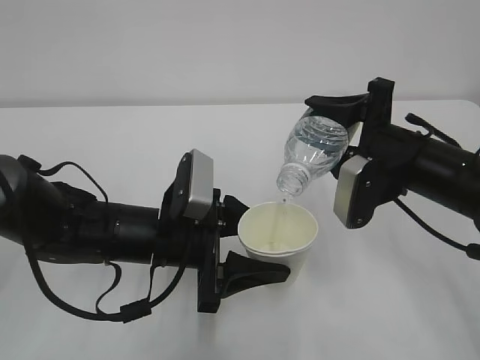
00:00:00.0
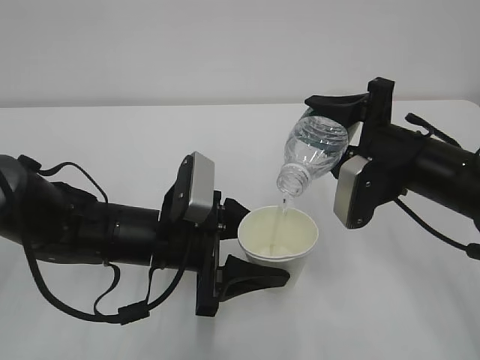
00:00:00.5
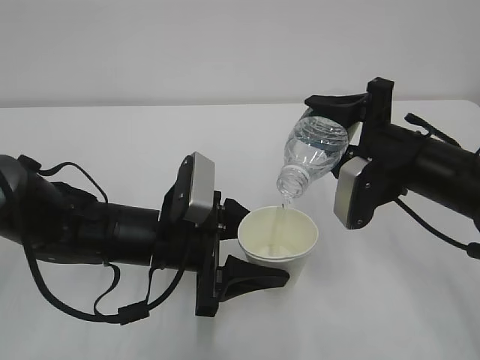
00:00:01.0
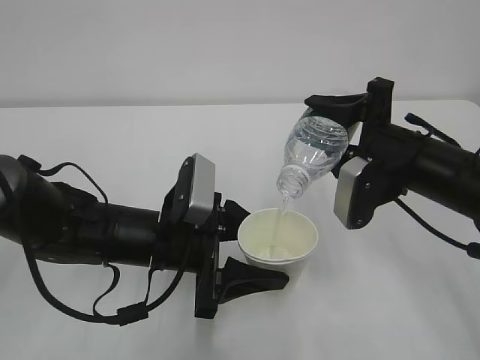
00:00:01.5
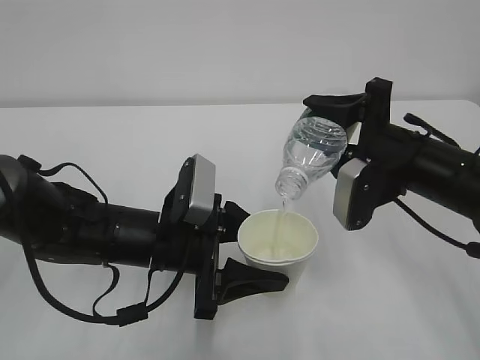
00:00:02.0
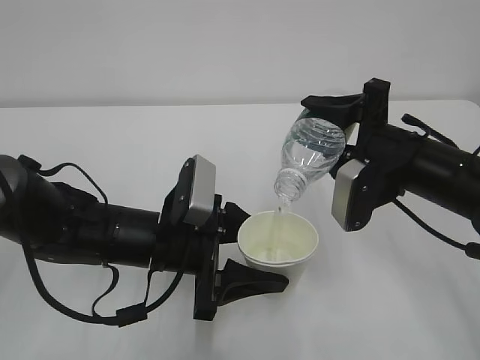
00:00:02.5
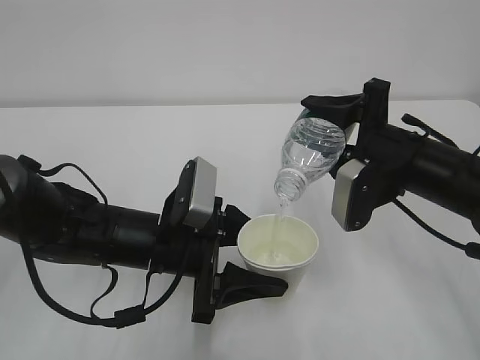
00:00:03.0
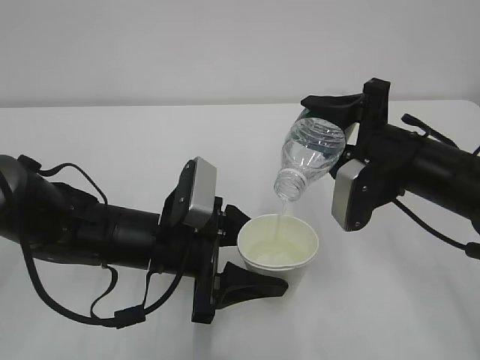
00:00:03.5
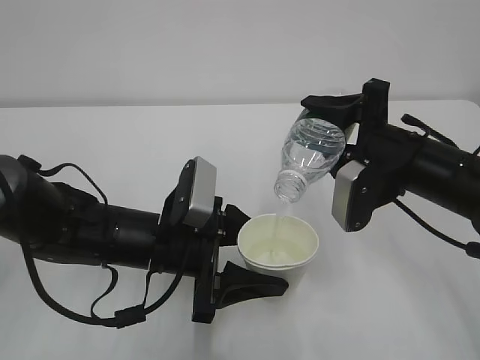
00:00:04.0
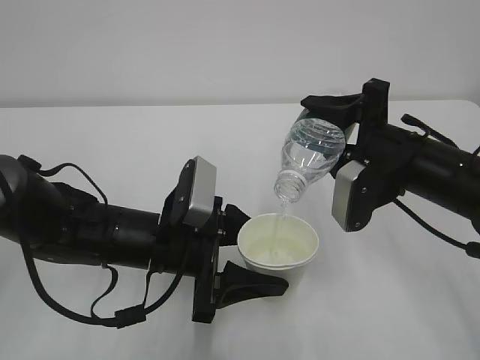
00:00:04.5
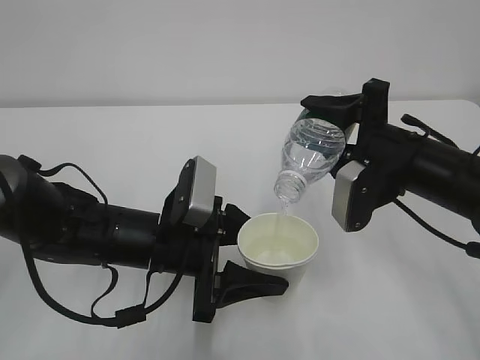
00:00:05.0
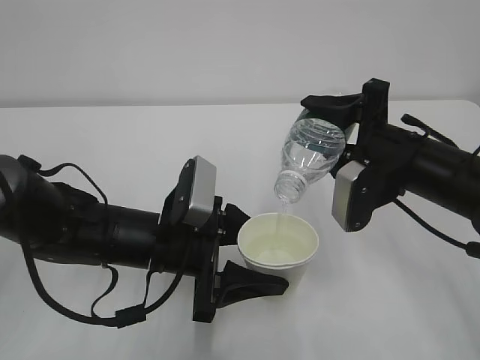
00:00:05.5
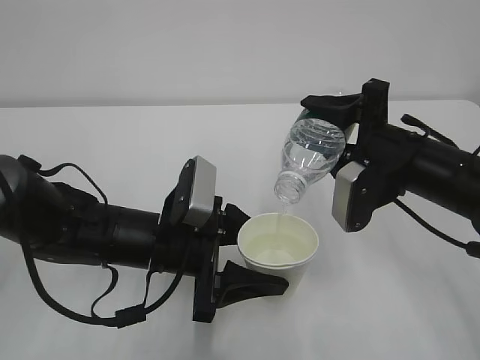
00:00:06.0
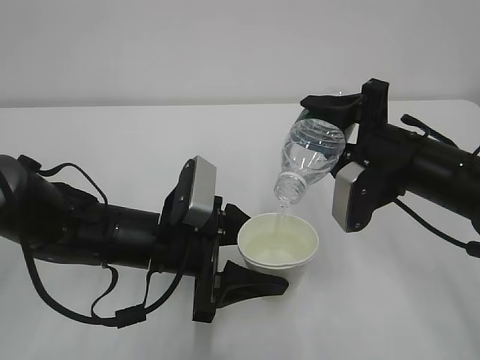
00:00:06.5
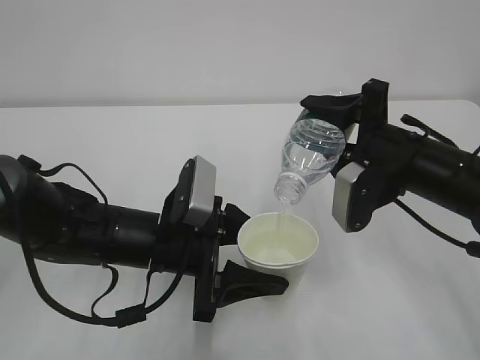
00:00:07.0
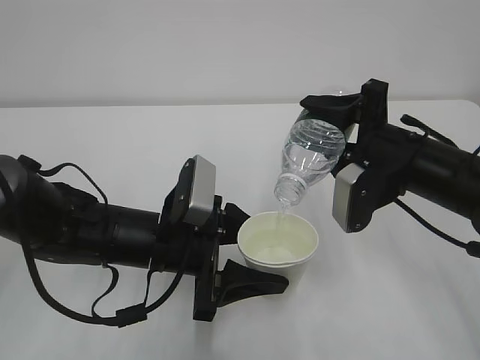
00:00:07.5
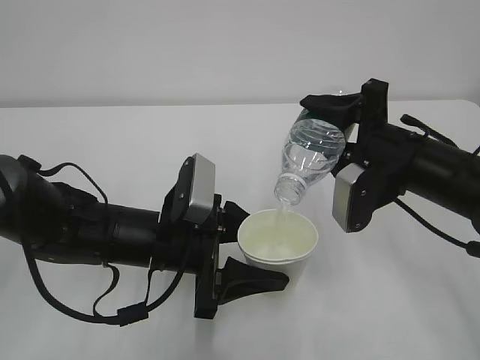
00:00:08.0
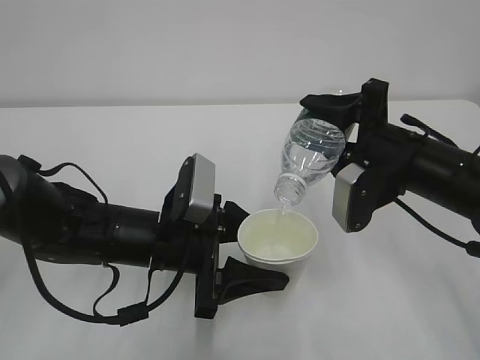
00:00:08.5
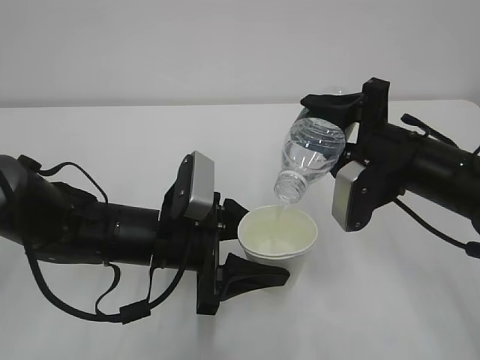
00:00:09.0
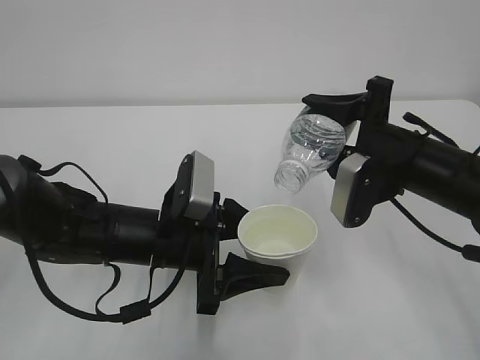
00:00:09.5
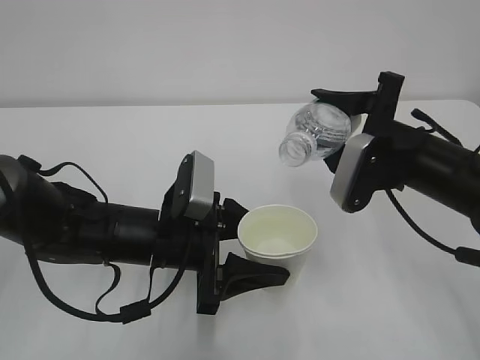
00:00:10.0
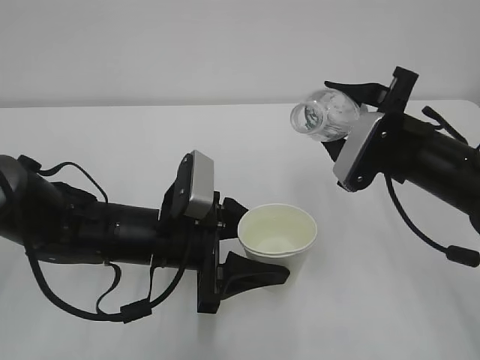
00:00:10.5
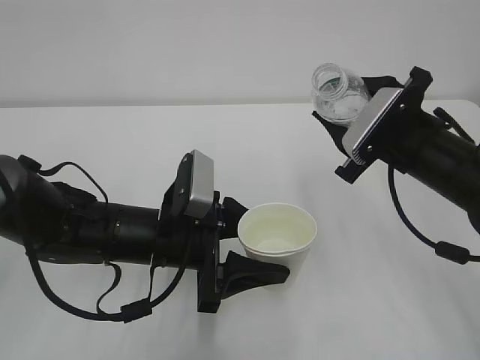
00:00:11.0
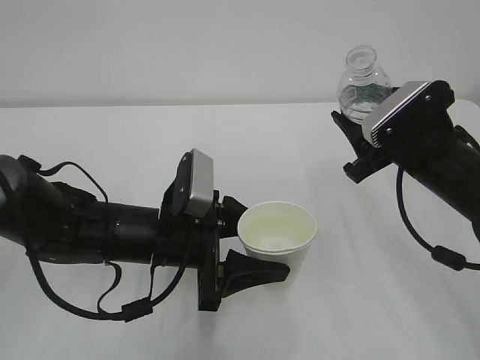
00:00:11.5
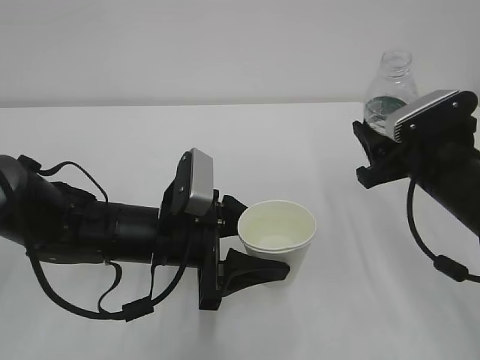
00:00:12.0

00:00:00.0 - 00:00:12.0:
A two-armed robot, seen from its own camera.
00:00:00.0 - 00:00:06.0: Both grippers stay put.
00:00:06.0 - 00:00:08.0: Both grippers stay put.

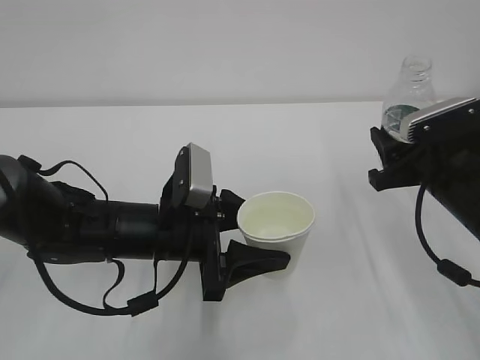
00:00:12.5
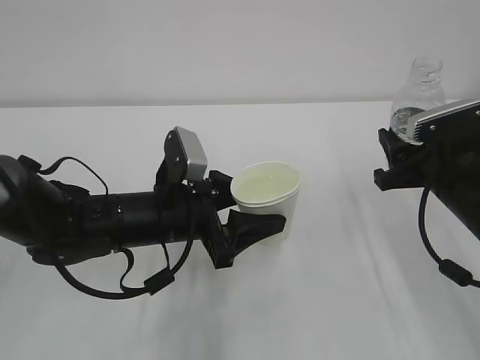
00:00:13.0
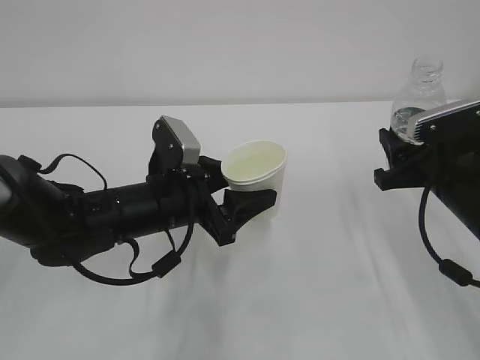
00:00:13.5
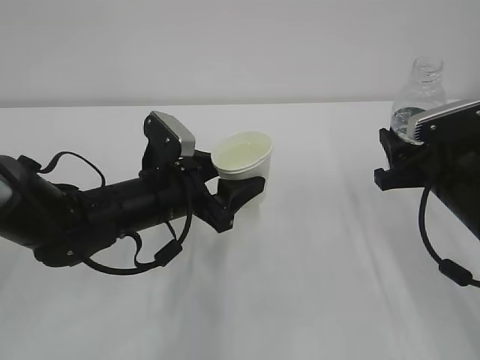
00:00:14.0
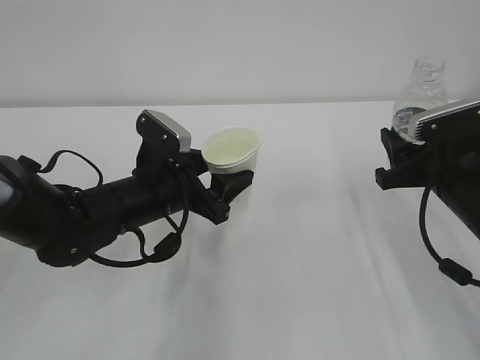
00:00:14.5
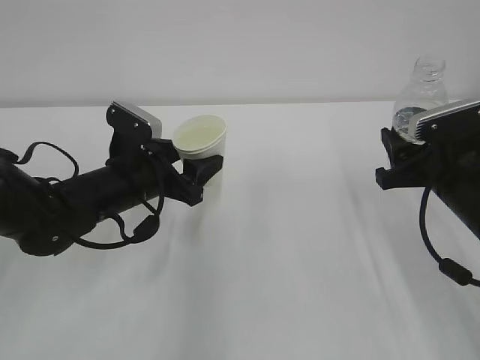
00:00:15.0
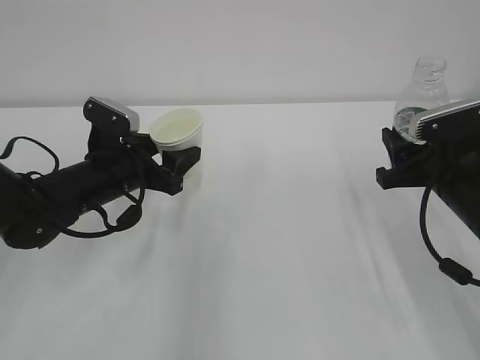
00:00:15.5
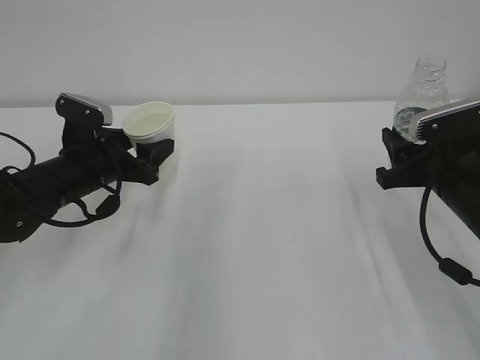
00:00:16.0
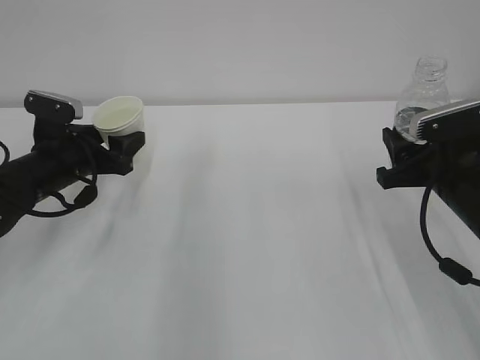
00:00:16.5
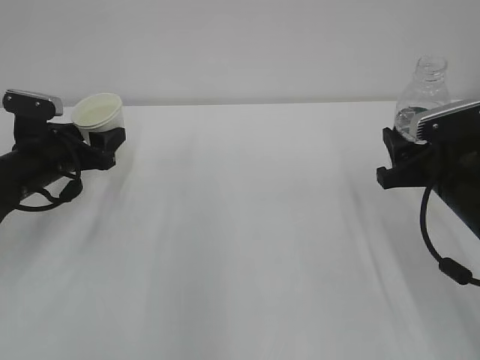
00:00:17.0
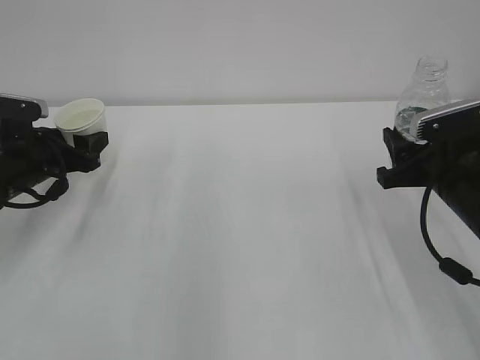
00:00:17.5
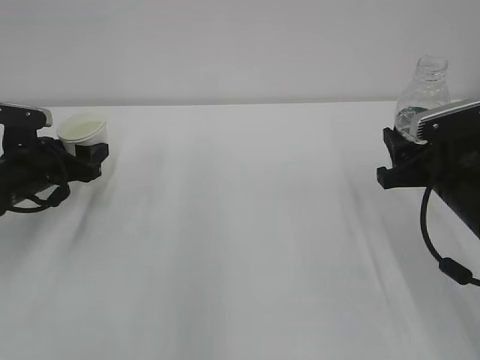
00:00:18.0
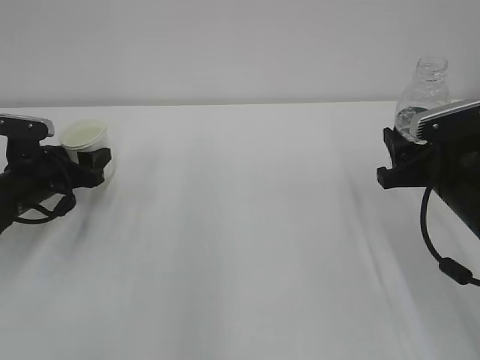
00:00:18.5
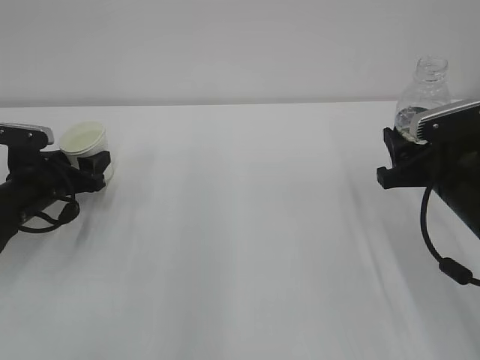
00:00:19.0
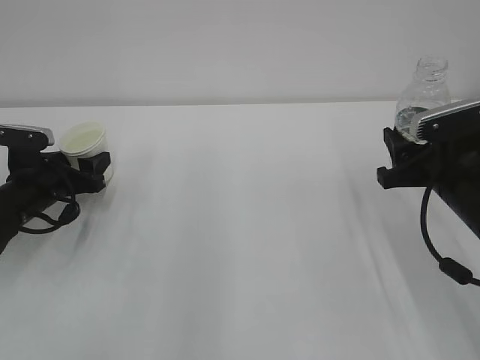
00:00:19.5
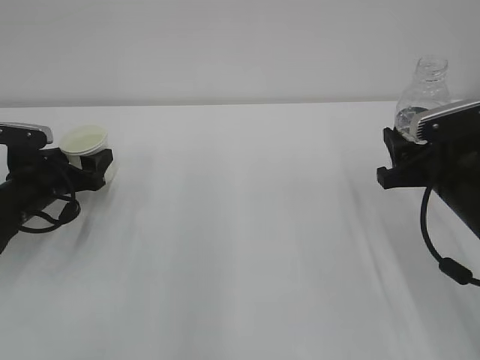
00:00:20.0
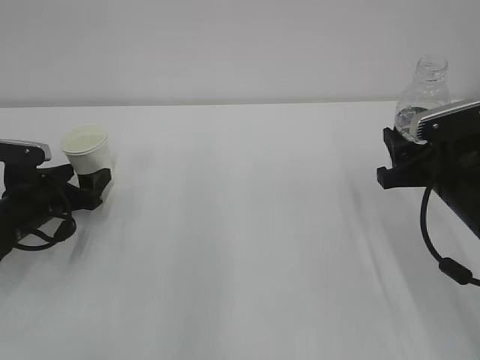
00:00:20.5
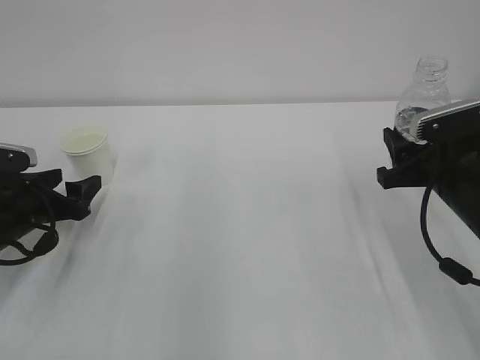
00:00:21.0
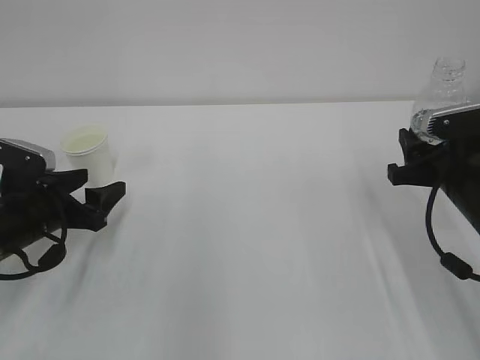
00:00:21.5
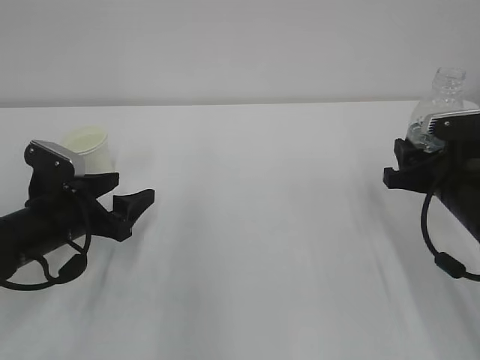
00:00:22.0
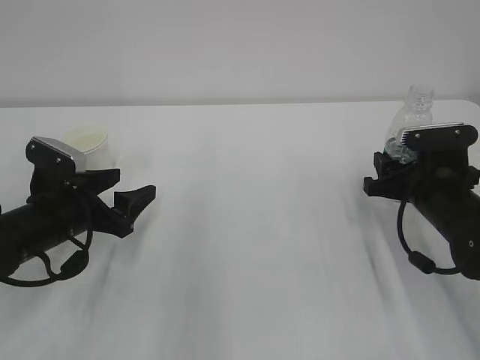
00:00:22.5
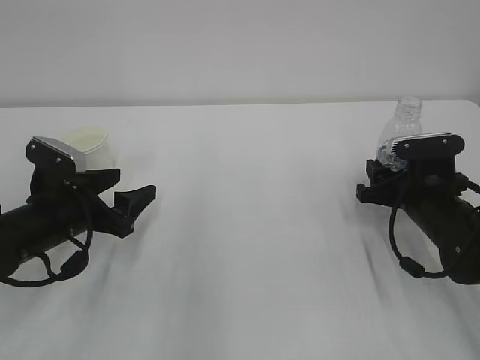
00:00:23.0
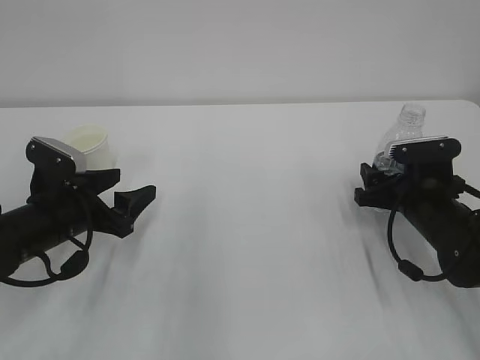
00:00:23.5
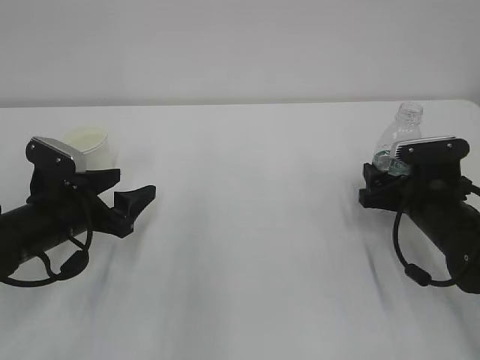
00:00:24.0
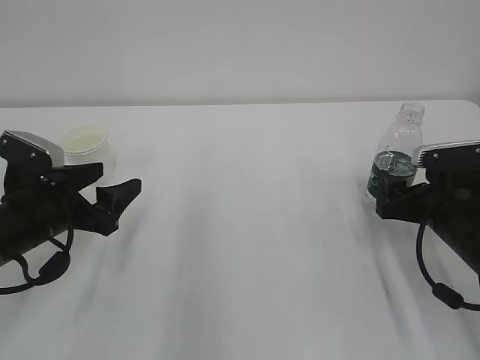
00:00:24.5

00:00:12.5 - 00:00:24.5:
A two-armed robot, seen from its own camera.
00:00:12.5 - 00:00:14.5: The left gripper moves approximately 5 cm.
00:00:14.5 - 00:00:16.5: The left gripper moves to the left and forward, roughly 15 cm.
00:00:16.5 - 00:00:18.5: The left gripper shifts by approximately 5 cm.
00:00:18.5 - 00:00:20.5: The left gripper opens up.
00:00:20.5 - 00:00:22.5: The left gripper shifts roughly 10 cm to the right and backward; the right gripper ends up approximately 5 cm from where it was.
00:00:22.5 - 00:00:24.5: The right gripper opens up.

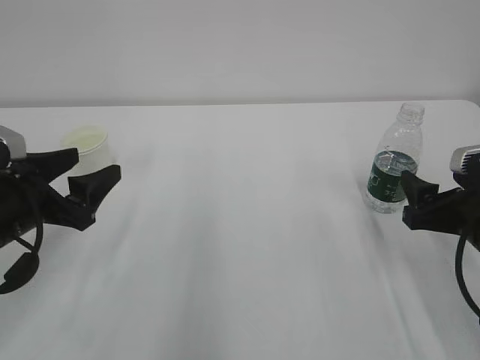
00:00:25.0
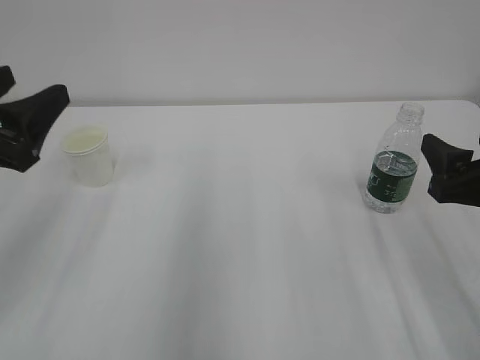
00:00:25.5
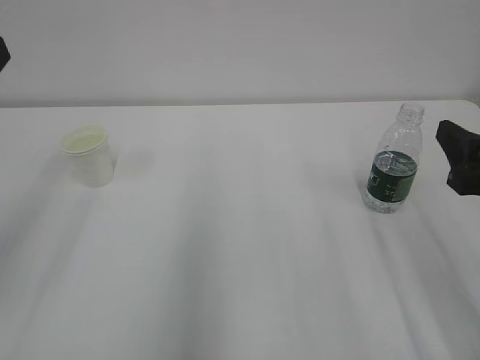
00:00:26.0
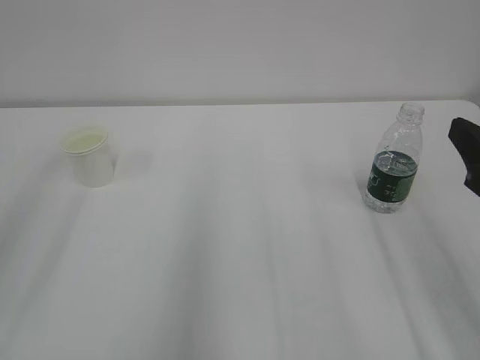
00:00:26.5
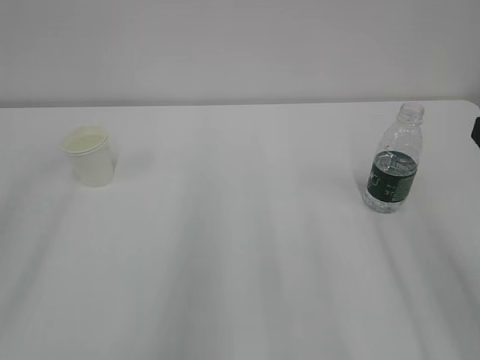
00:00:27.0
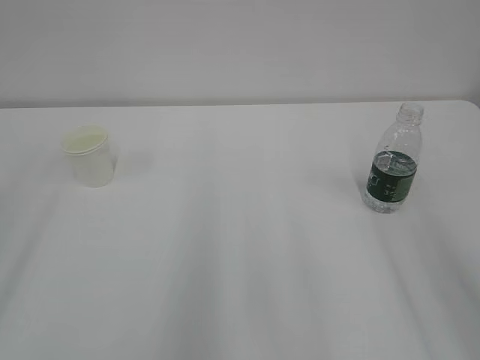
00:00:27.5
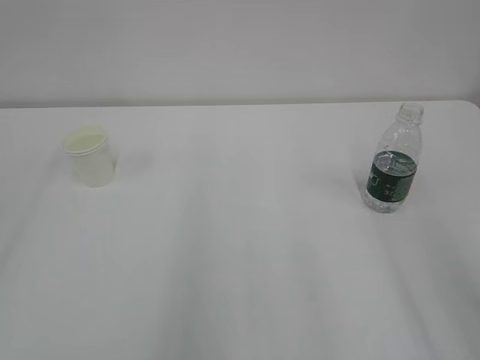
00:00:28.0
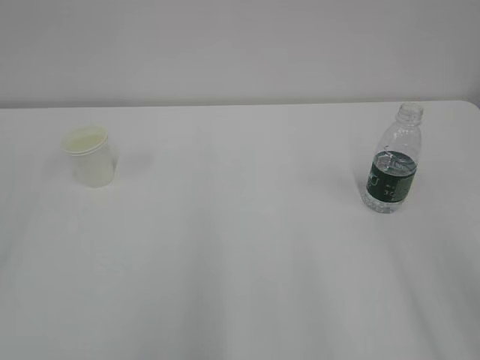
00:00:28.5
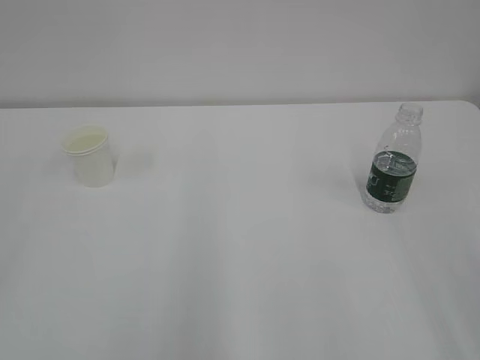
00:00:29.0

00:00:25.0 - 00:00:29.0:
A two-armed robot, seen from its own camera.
00:00:25.0 - 00:00:27.0: The grippers both shift upward and backward by some 20 cm.
